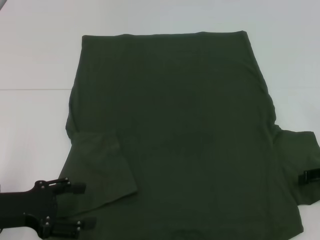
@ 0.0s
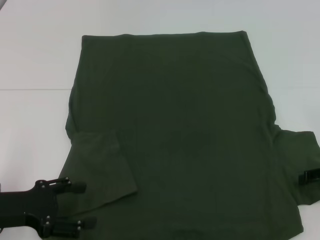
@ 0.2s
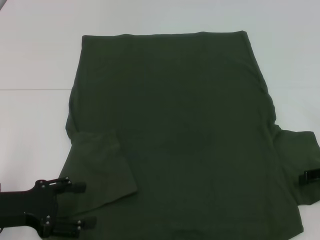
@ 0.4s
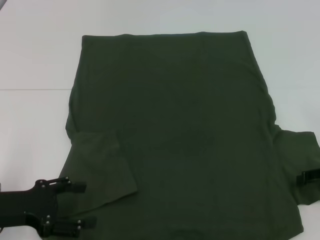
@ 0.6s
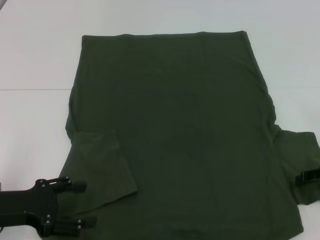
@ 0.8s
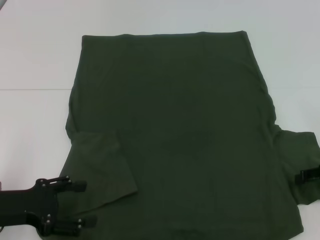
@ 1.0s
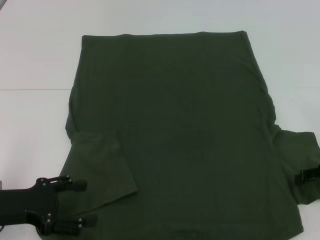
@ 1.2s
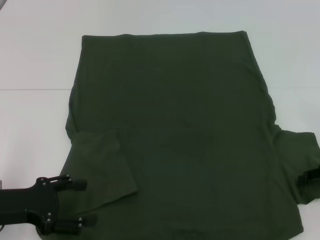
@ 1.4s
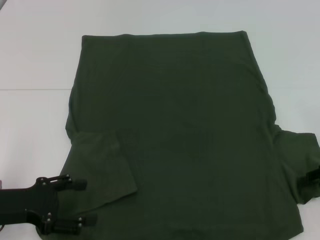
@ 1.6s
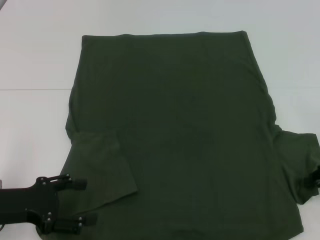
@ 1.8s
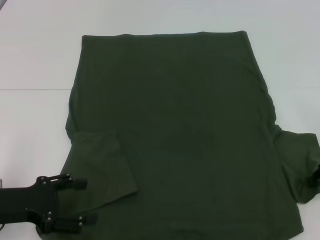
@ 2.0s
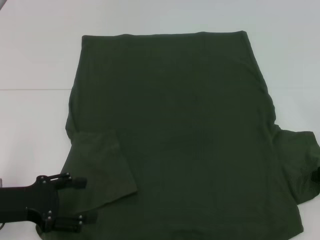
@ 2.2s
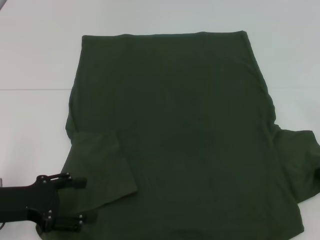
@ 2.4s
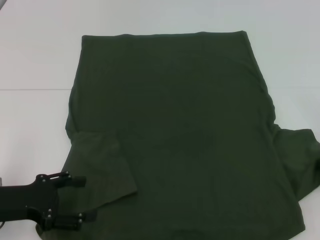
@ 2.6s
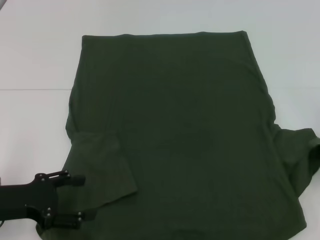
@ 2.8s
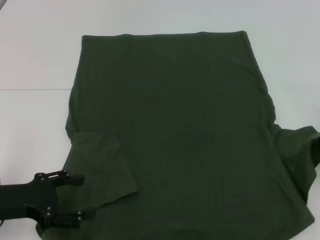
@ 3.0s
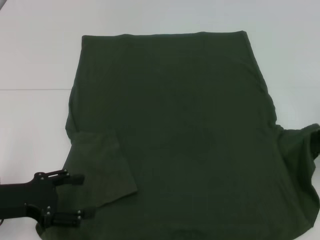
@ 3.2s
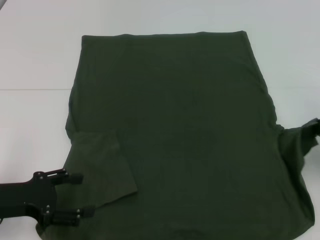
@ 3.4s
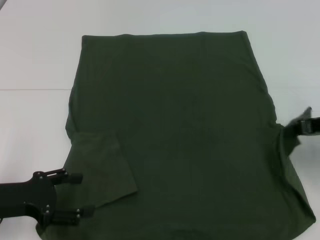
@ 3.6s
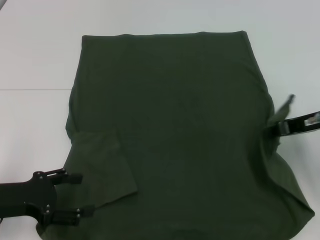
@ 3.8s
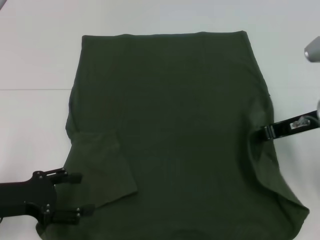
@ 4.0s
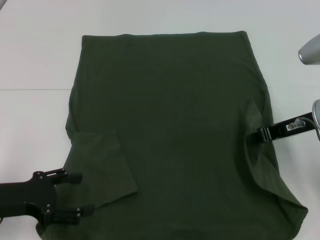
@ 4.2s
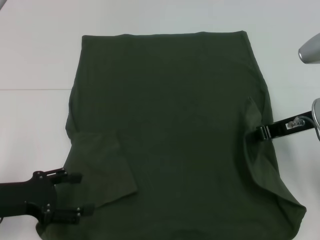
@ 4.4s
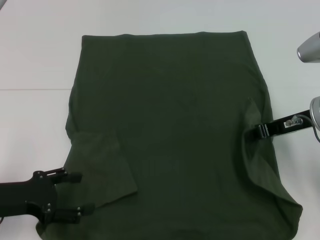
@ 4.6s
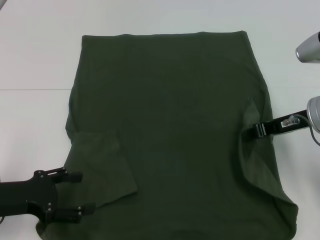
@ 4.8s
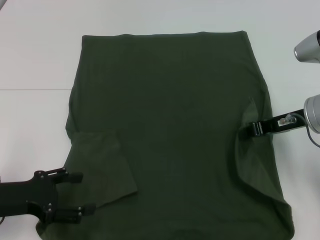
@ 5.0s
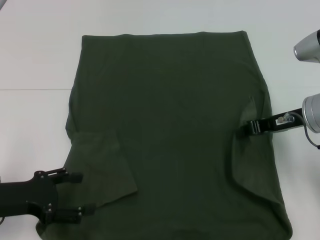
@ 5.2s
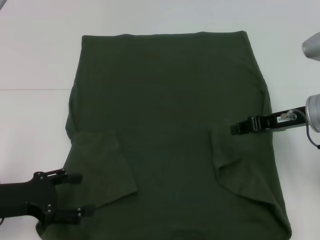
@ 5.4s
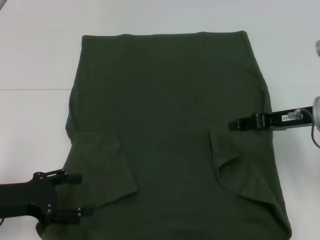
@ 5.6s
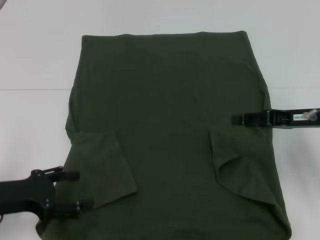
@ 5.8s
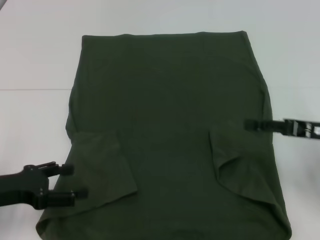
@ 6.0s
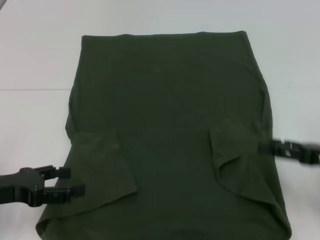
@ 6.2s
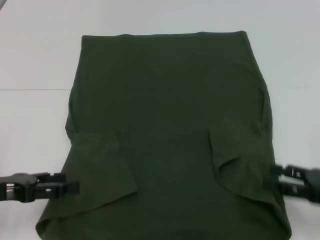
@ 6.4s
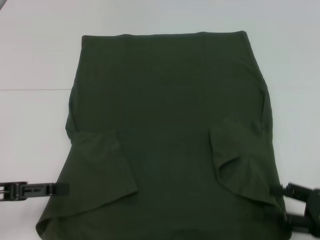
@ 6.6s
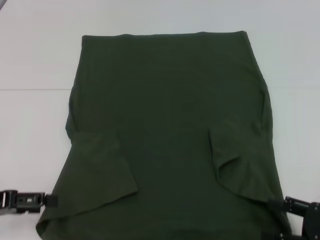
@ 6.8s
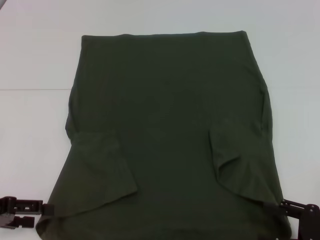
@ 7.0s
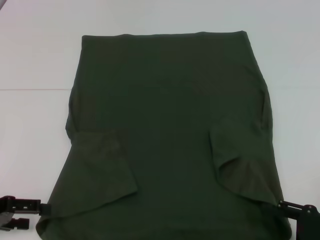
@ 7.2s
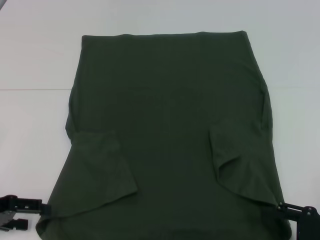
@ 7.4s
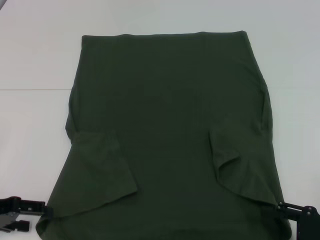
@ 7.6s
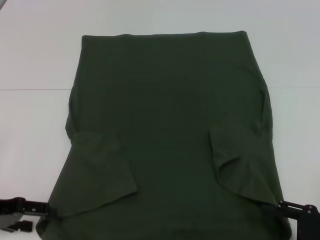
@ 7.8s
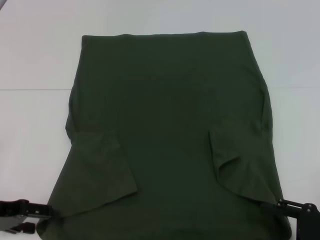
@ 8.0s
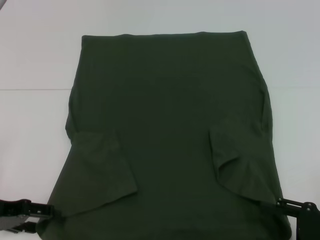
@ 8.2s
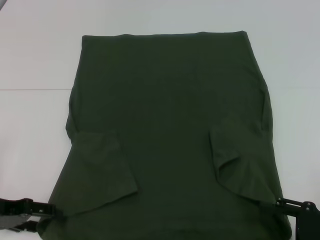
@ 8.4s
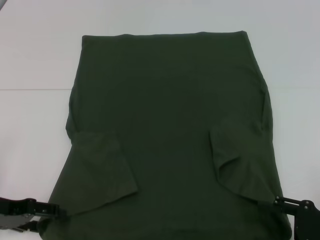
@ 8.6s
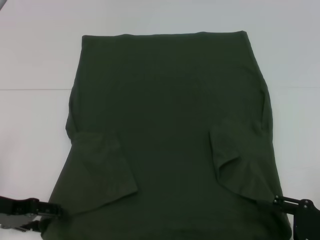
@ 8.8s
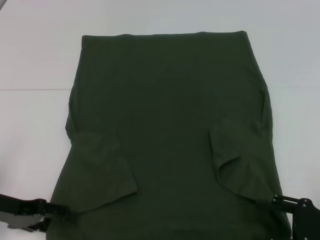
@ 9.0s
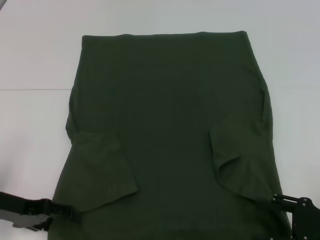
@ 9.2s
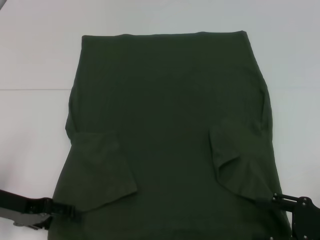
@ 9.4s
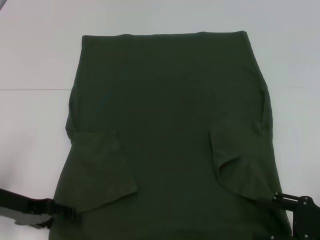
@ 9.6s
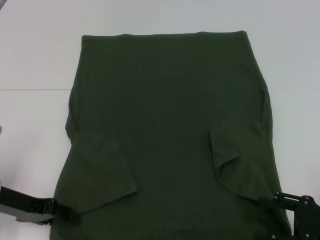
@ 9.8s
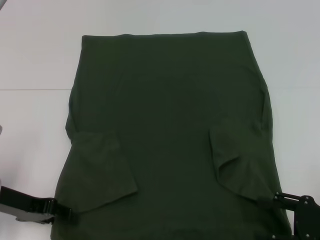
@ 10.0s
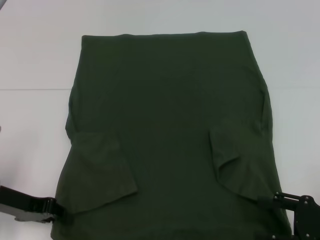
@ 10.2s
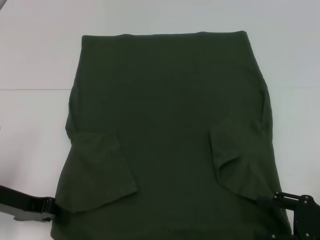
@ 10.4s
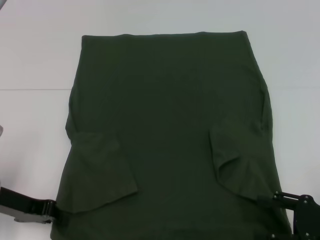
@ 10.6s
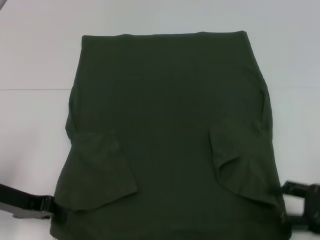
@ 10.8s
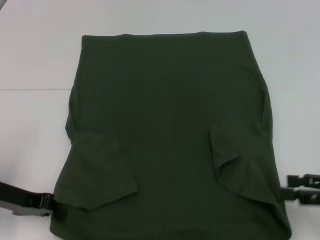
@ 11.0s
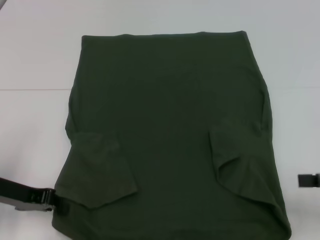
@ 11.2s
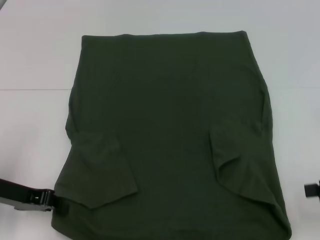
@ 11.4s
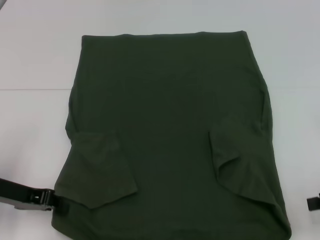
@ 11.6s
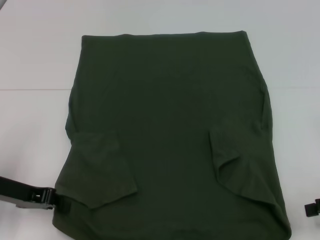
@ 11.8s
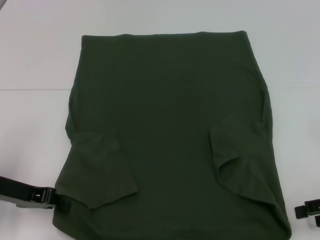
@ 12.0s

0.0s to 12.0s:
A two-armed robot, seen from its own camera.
Step, 0.2s to 6.0s: Fold the bottom right sleeve with your right hand.
Step, 6.2s to 10.6s: Grab the bottom left corner with your left hand.
0.0s to 1.6s: The two grippers keep their place.
1.6s to 3.0s: The right gripper moves some 5 cm, and closes.
3.0s to 4.4s: The right gripper shifts approximately 10 cm to the left.
4.4s to 6.0s: The right gripper shifts some 5 cm to the right, and opens.
6.0s to 7.6s: The right gripper heads backward and downward, covering about 15 cm.
7.6s to 9.0s: The grippers make only small movements.
9.0s to 10.4s: The left gripper closes up.
10.4s to 12.0s: The right gripper moves upward and forward, roughly 5 cm.

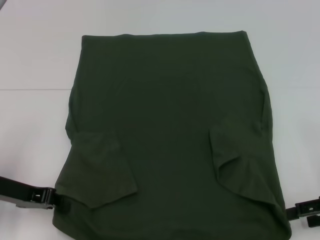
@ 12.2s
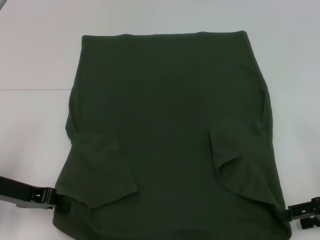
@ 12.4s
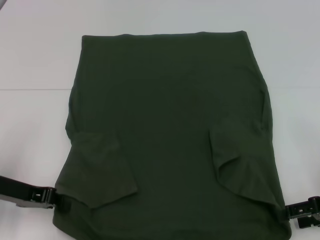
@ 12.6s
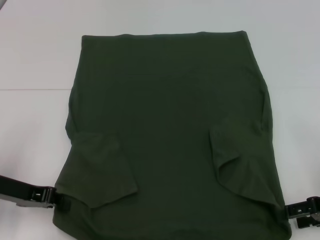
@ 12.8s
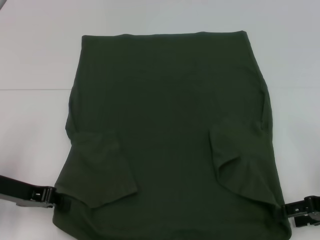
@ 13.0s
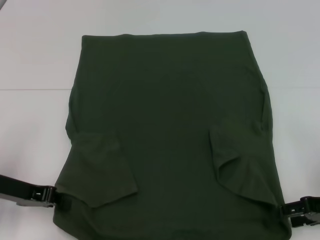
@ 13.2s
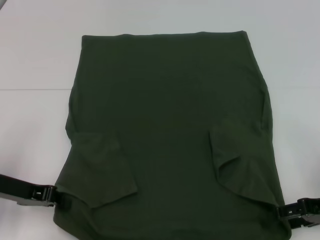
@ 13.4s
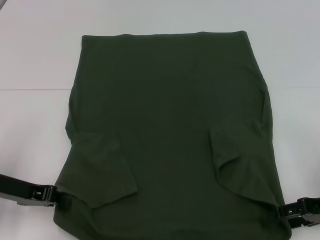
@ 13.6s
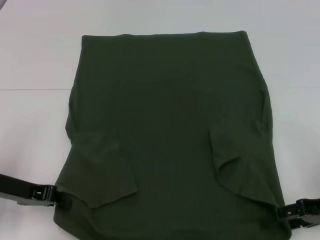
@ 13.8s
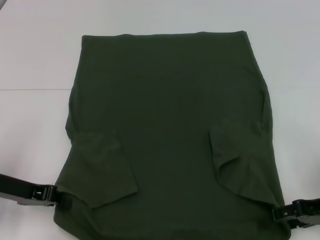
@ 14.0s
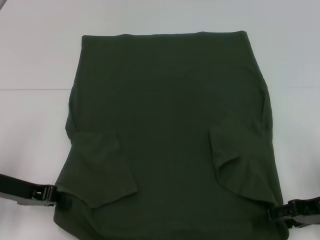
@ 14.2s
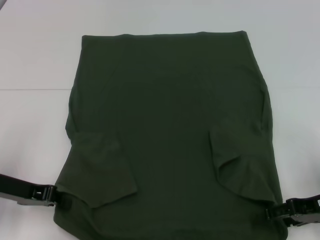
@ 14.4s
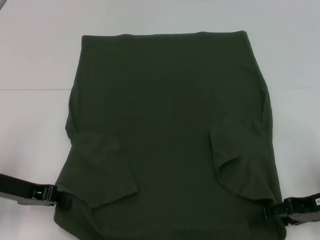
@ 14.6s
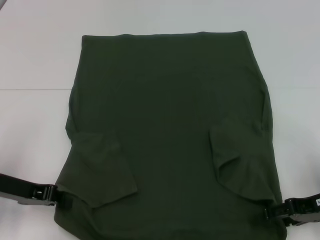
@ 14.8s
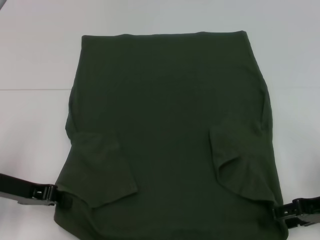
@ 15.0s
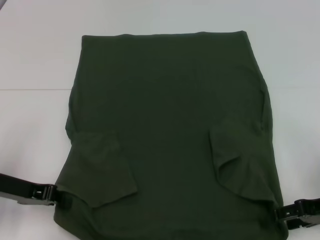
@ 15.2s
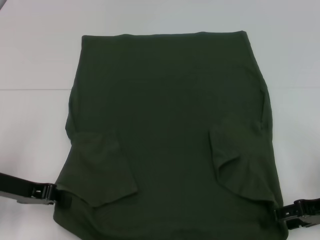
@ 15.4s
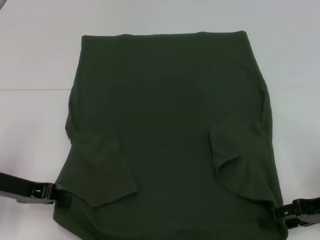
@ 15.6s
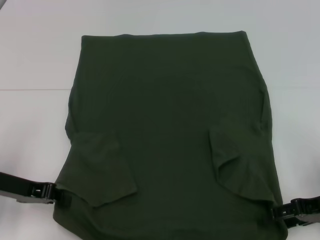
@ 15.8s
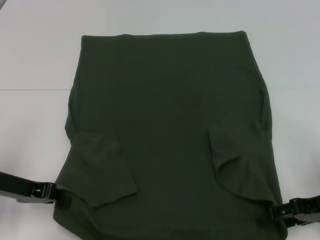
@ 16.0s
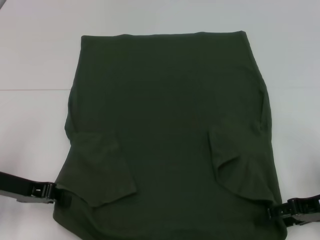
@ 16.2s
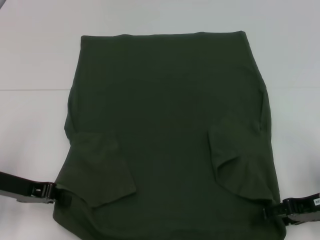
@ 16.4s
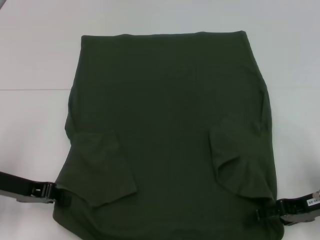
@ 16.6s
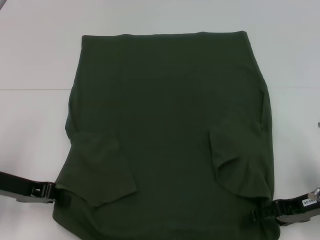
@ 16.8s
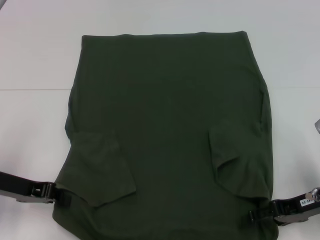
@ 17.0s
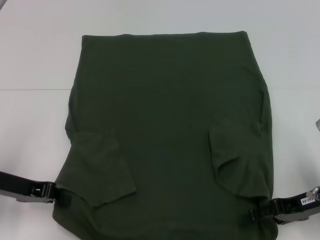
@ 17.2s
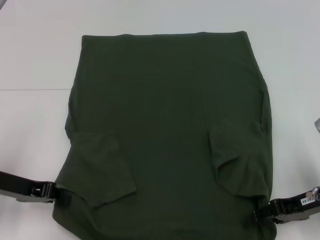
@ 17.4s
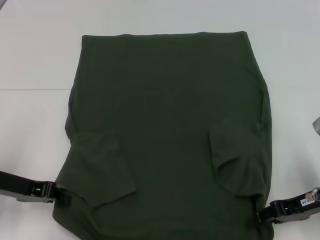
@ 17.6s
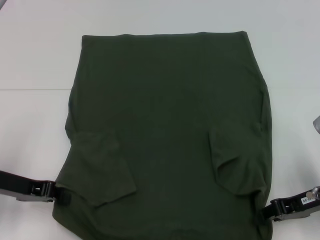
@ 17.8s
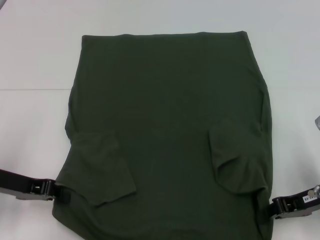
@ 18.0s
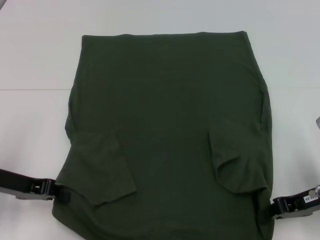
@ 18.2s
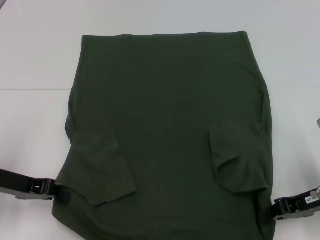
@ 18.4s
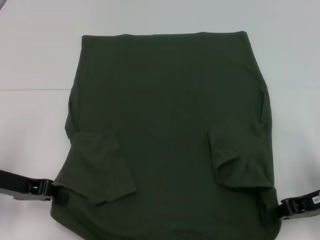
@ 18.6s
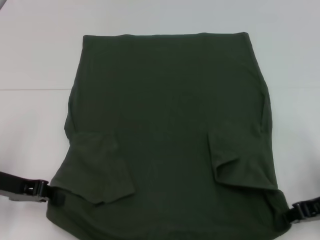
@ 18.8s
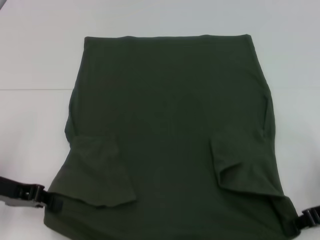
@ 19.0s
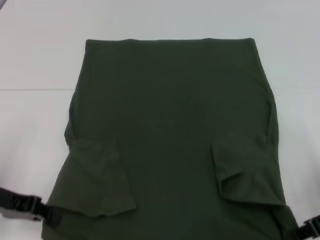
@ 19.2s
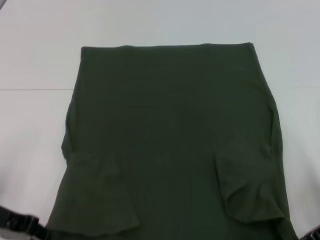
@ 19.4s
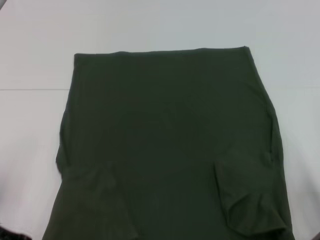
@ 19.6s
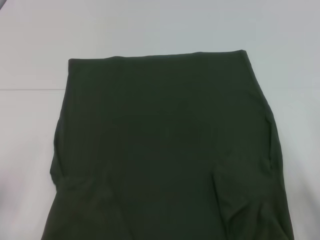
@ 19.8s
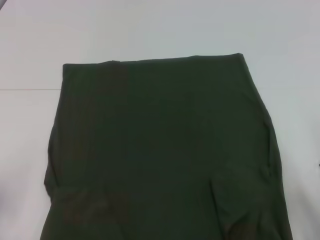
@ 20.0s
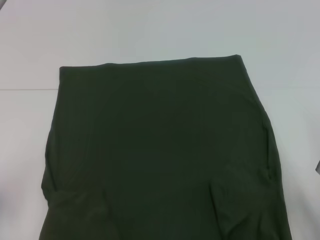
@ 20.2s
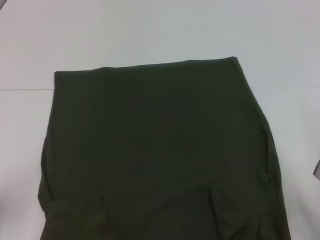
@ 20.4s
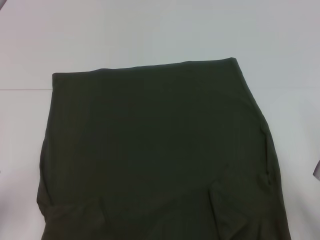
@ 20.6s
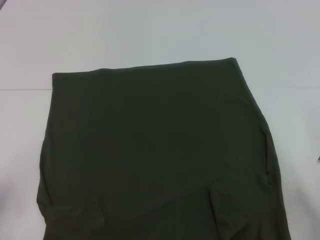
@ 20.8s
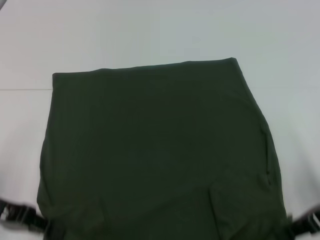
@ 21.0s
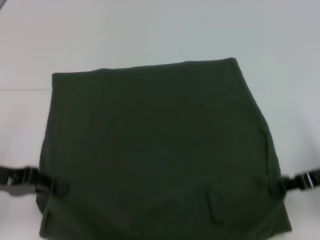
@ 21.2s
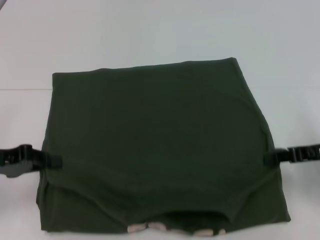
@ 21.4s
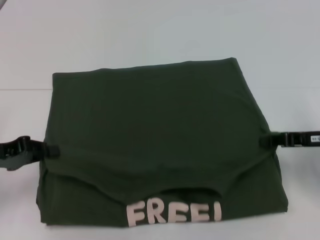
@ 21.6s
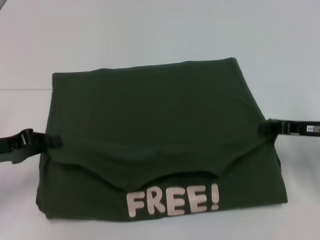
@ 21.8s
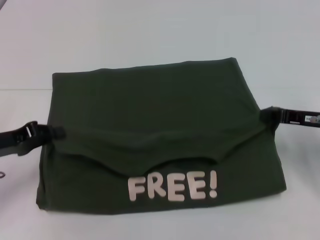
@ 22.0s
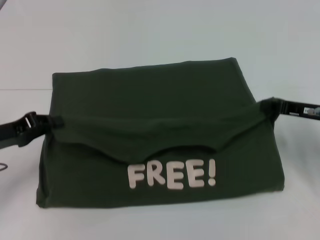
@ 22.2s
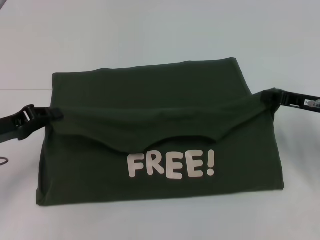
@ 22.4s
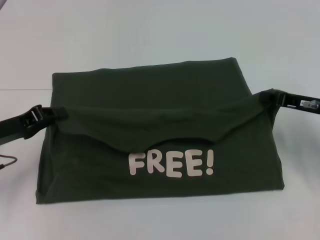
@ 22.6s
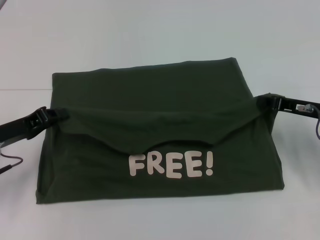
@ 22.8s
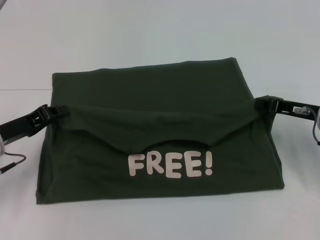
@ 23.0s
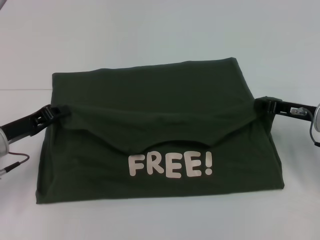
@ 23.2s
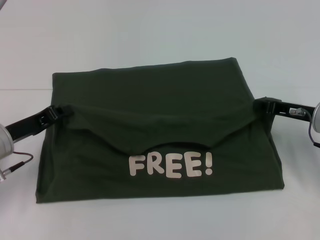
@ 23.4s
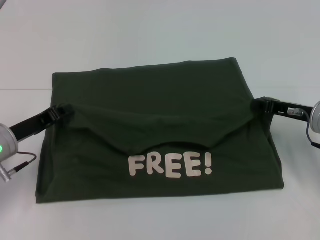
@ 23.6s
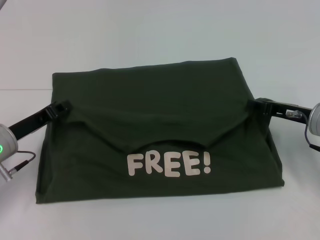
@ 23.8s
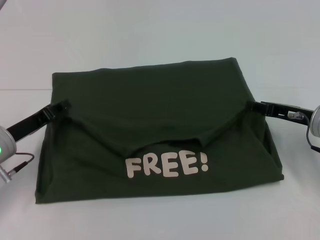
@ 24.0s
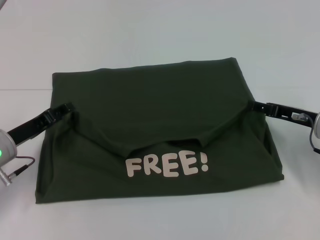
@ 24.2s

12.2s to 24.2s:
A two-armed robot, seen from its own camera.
Step, 12.2s to 19.2s: Grab the bottom right corner with your right hand.
12.2s to 13.8s: The grippers stay close to where they were, moving slightly.
15.2s to 16.6s: There are only small adjustments of the grippers.
16.6s to 18.2s: The right gripper closes.
18.2s to 19.8s: The left gripper ends up some 5 cm from where it was.
21.2s to 22.6s: The right gripper goes some 5 cm forward.
22.6s to 24.2s: The right gripper opens.
